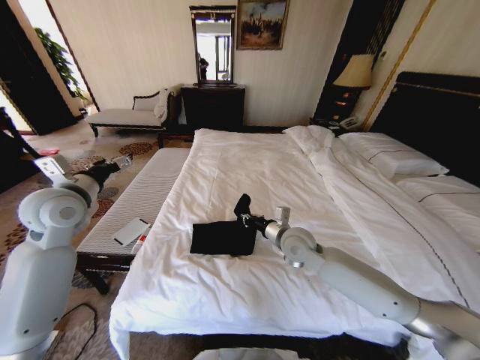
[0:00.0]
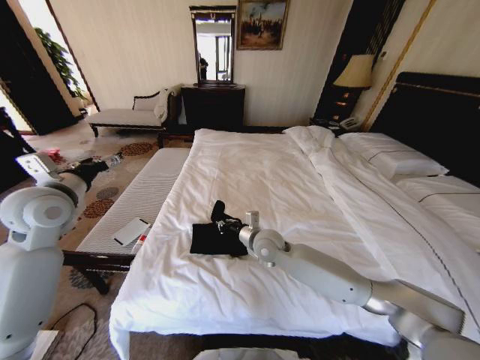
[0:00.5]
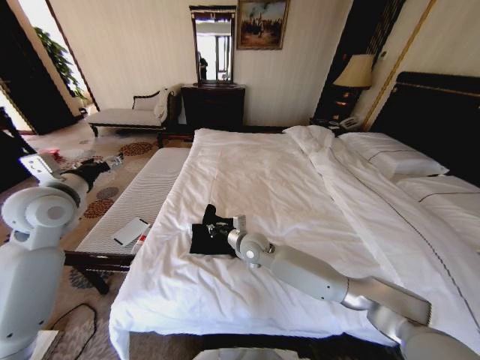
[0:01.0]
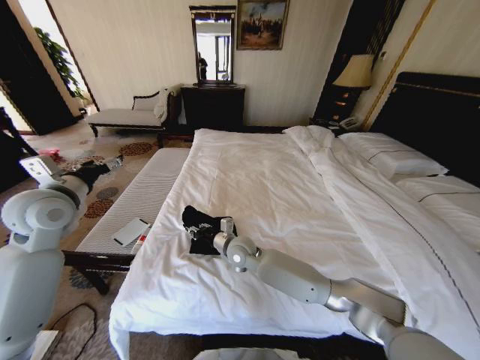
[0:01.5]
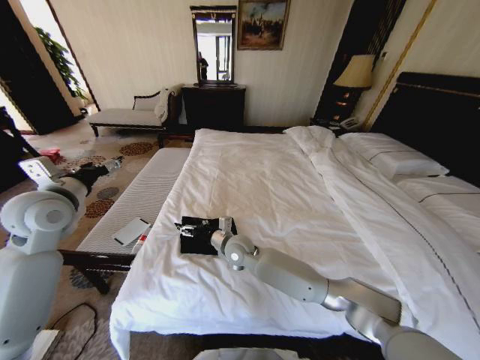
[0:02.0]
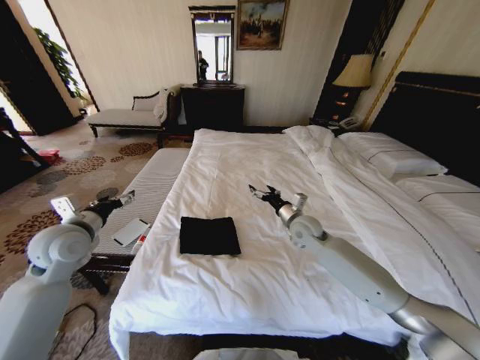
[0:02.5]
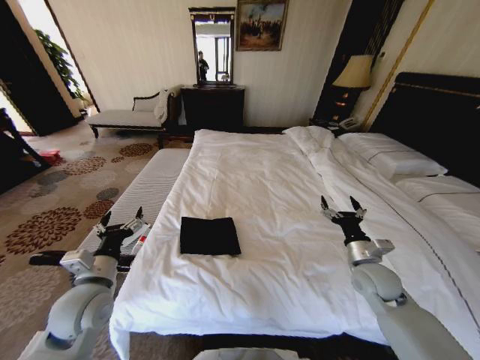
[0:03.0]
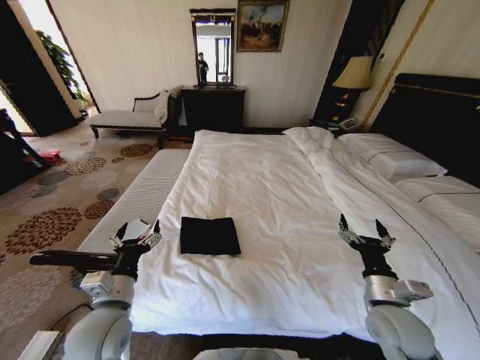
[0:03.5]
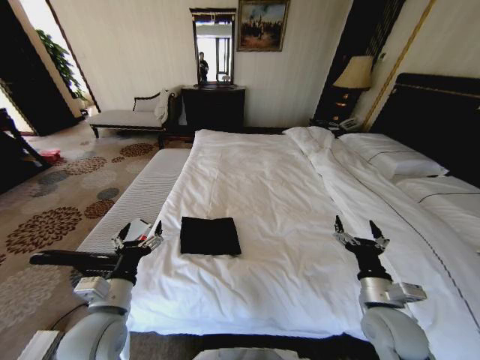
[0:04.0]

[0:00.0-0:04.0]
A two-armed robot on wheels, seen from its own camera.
Task of the whole recording: Fold the clothes on the bed.
0:00.0 to 0:02.0: The right gripper is displaced to the left and downward by about 15 cm, and opens.
0:02.0 to 0:04.0: The right gripper heads to the right and backward, covering approximately 40 cm. Meanwhile the left gripper moves backward, downward and to the right, approximately 25 cm.

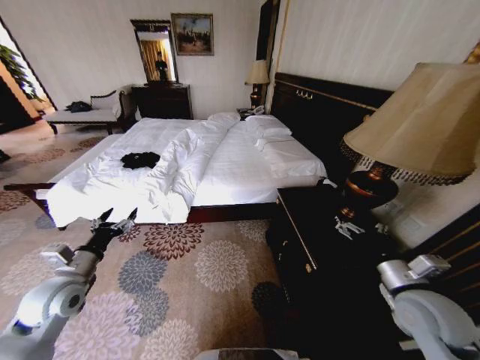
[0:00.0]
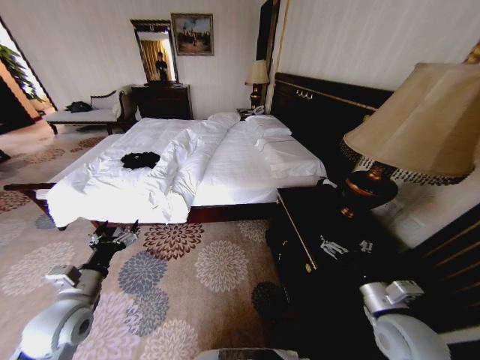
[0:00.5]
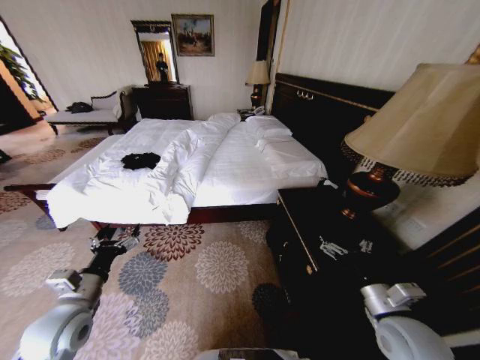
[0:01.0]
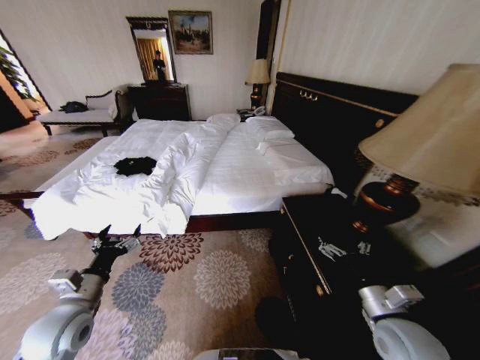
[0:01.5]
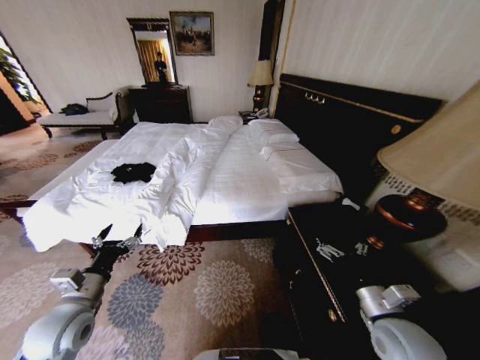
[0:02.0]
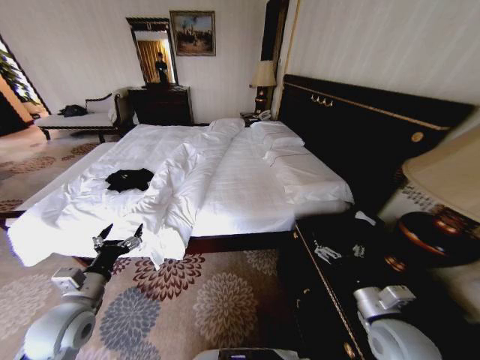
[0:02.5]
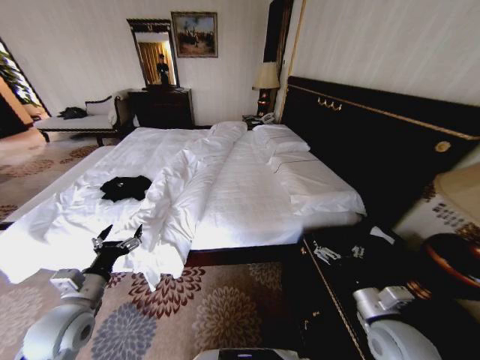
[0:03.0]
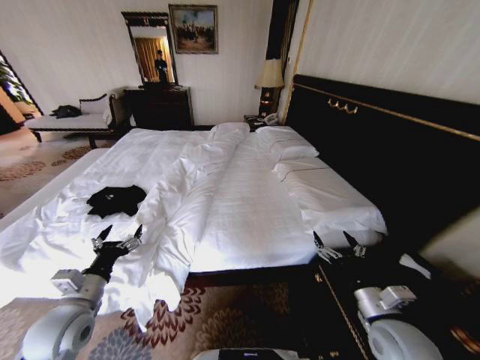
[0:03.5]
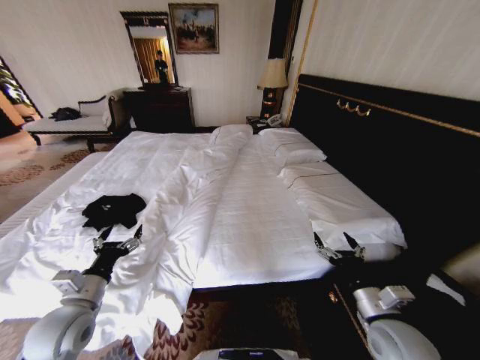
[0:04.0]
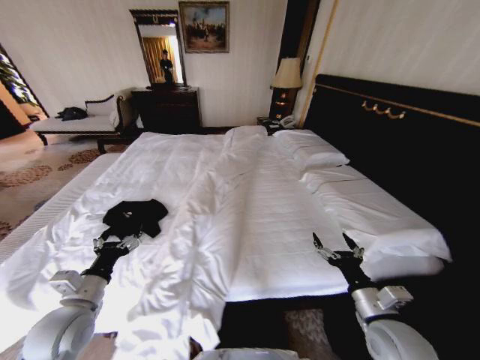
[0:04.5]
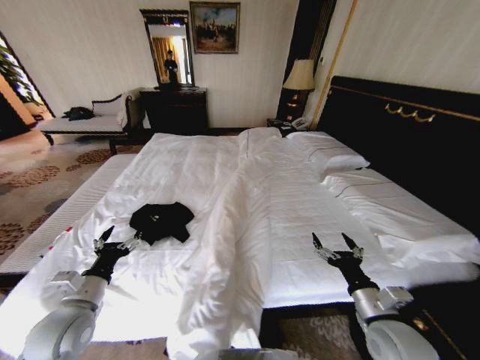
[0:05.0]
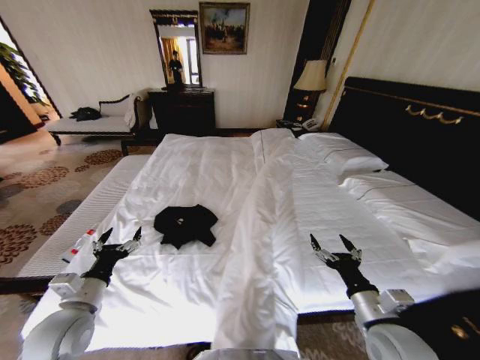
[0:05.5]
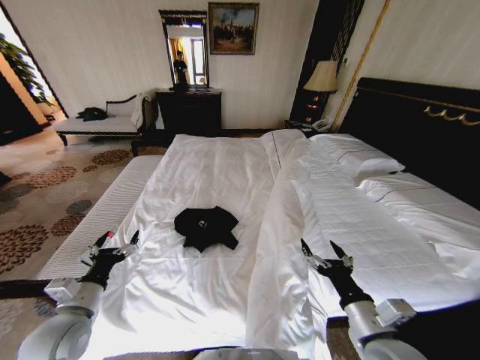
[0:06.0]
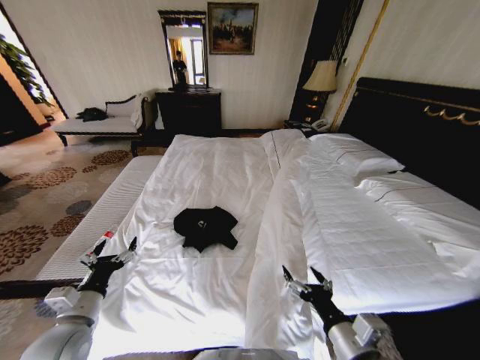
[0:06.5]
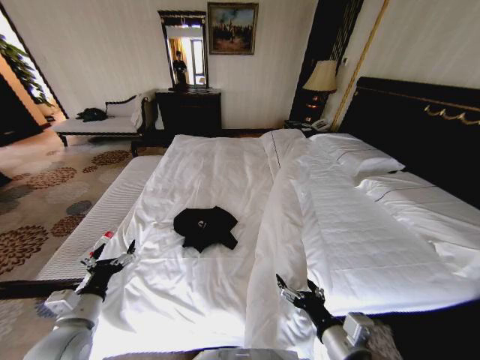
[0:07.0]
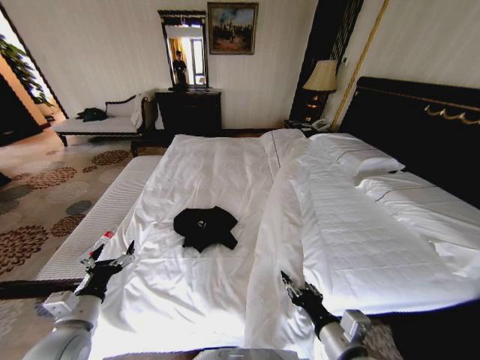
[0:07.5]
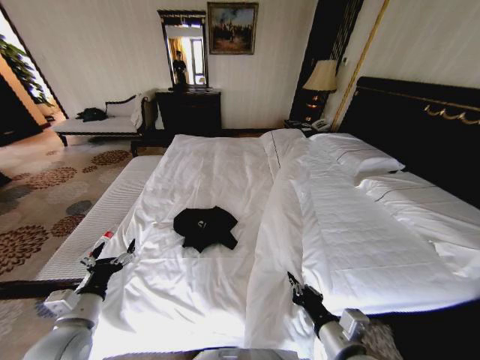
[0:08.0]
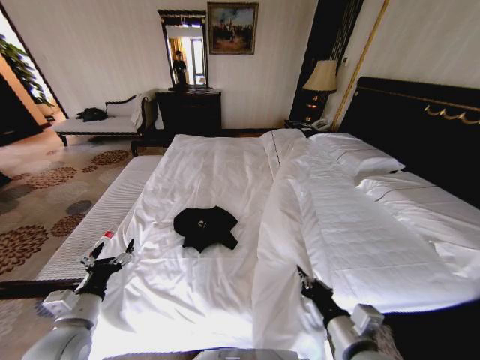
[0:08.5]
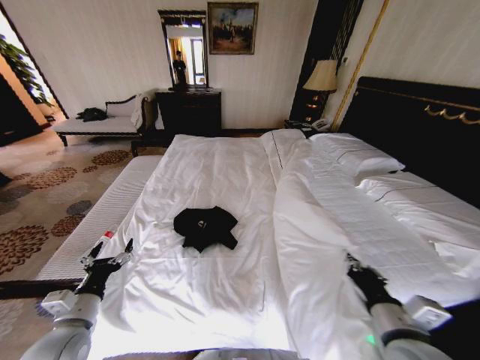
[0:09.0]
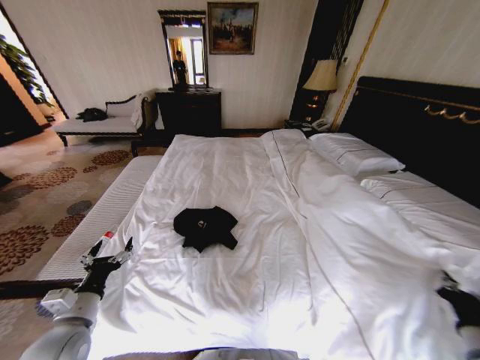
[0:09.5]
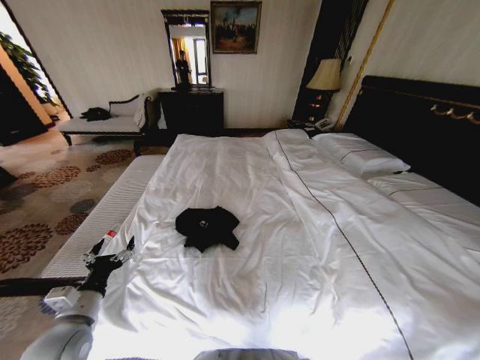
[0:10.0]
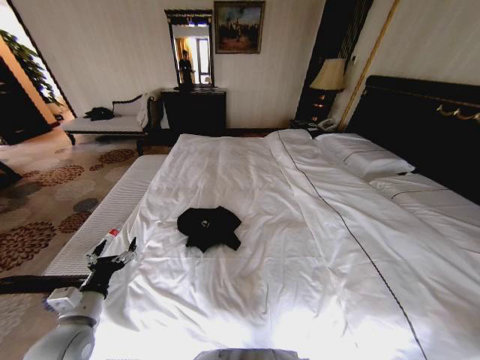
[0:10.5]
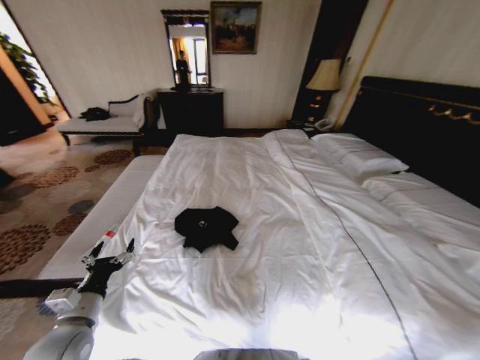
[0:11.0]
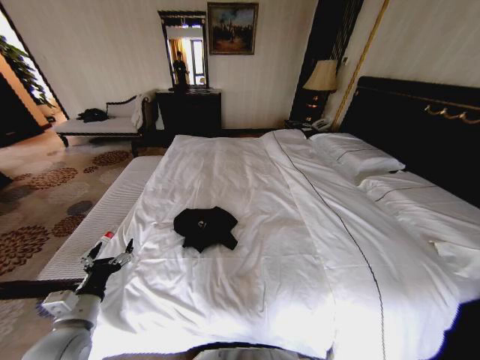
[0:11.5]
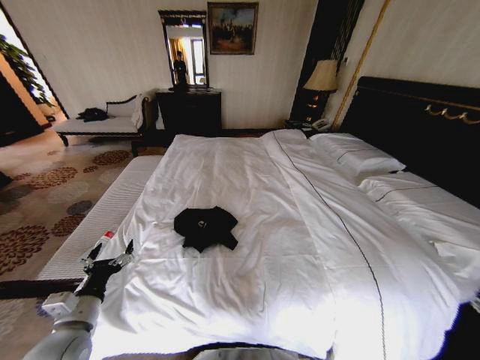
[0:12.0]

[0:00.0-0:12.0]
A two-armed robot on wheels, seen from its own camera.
Task of the whole recording: Fold the clothes on the bed.
0:04.0 to 0:06.0: The right gripper moves some 5 cm.
0:06.0 to 0:08.0: The right gripper moves approximately 5 cm, and closes its fingers.
0:08.0 to 0:10.0: The right gripper shifts approximately 30 cm to the right.
0:10.0 to 0:12.0: The right gripper goes to the right and returns, roughly 5 cm each way, and opens its fingers.

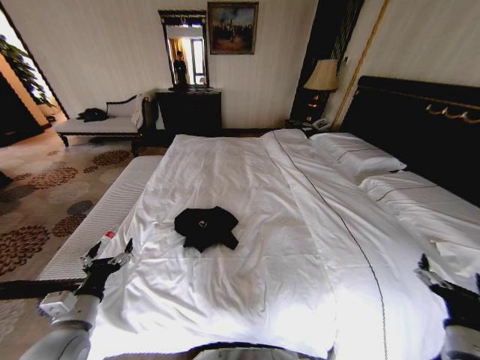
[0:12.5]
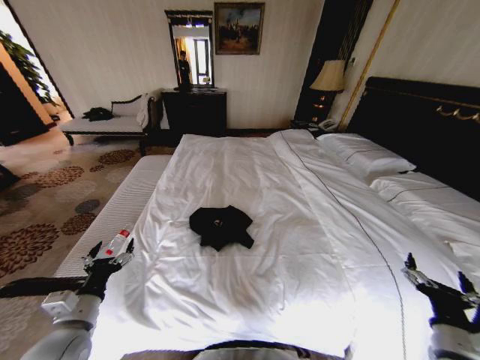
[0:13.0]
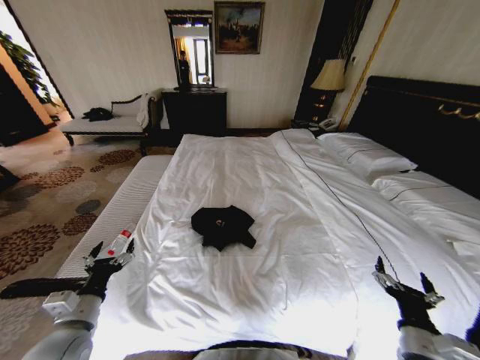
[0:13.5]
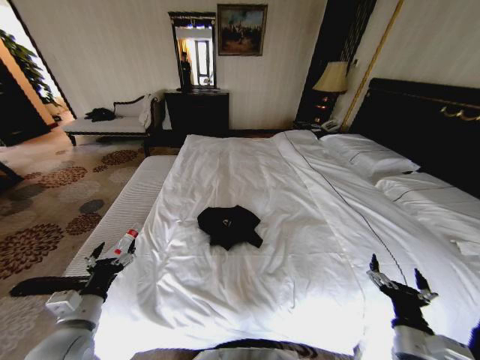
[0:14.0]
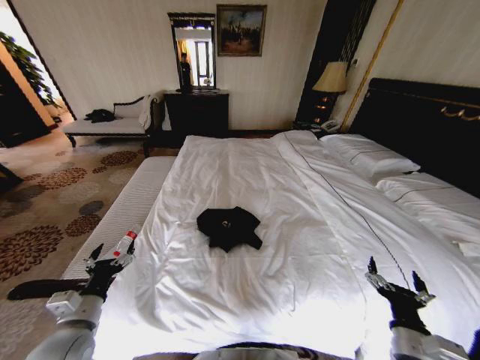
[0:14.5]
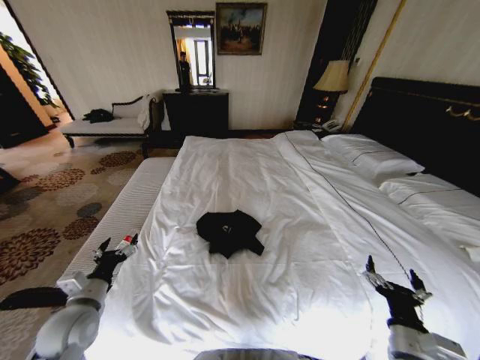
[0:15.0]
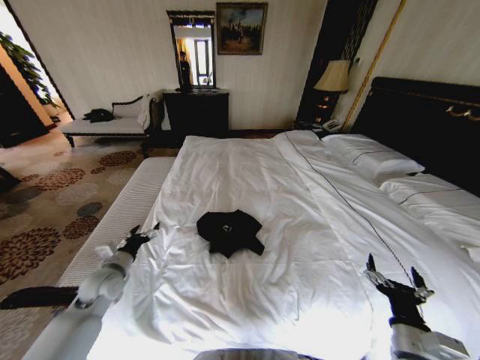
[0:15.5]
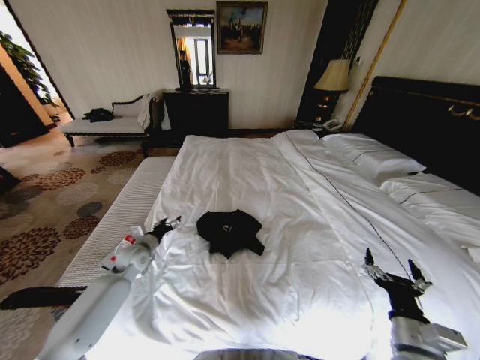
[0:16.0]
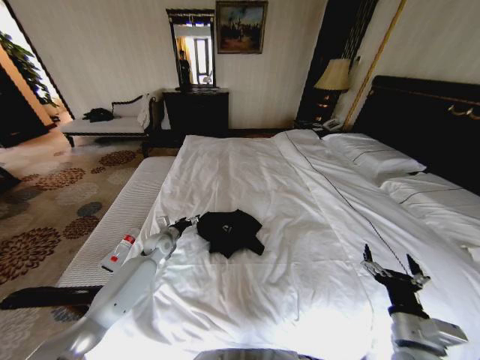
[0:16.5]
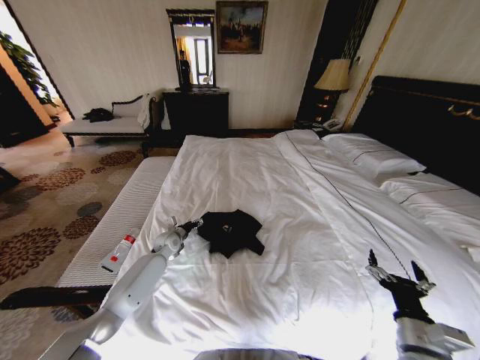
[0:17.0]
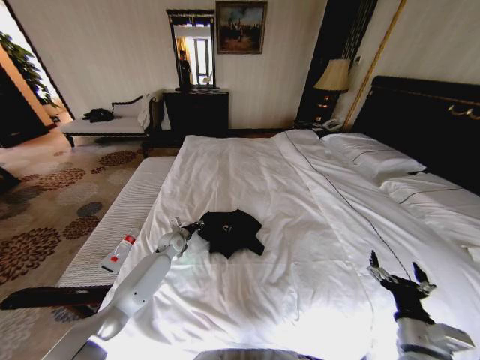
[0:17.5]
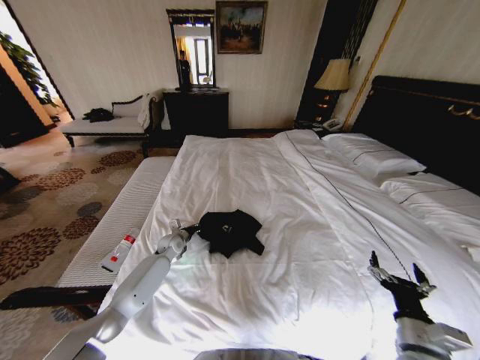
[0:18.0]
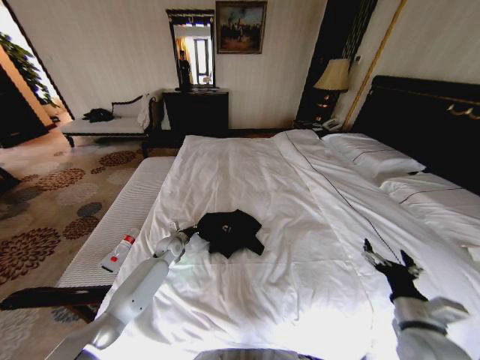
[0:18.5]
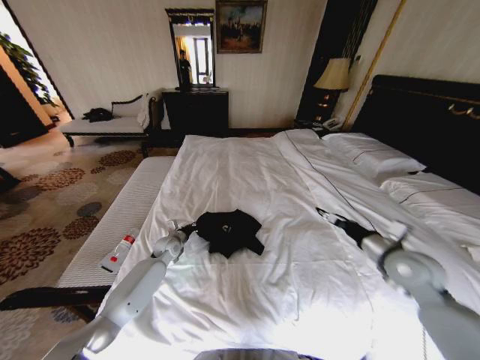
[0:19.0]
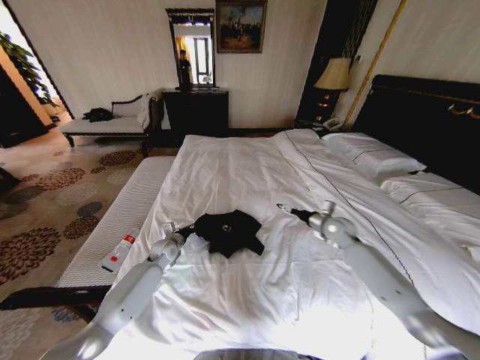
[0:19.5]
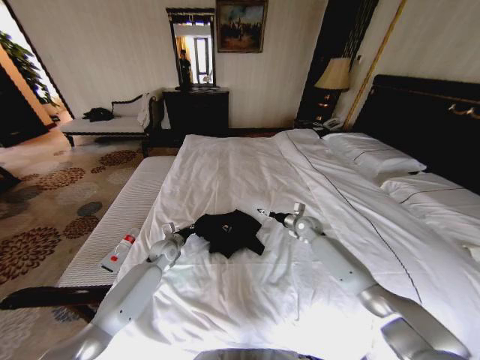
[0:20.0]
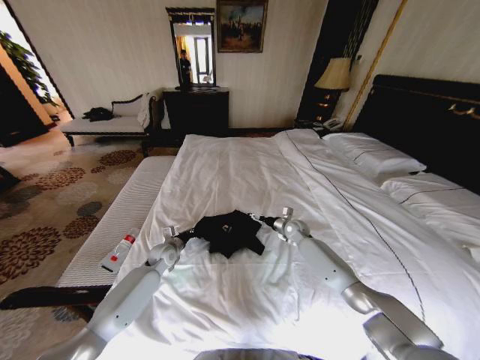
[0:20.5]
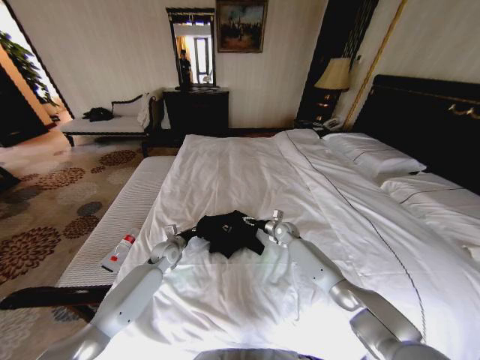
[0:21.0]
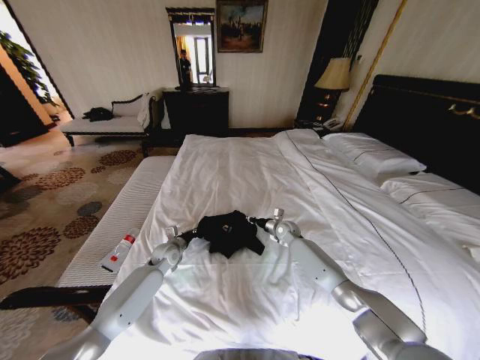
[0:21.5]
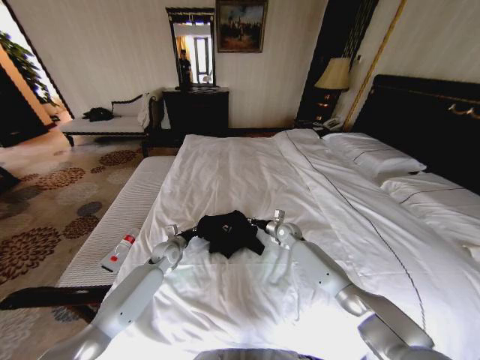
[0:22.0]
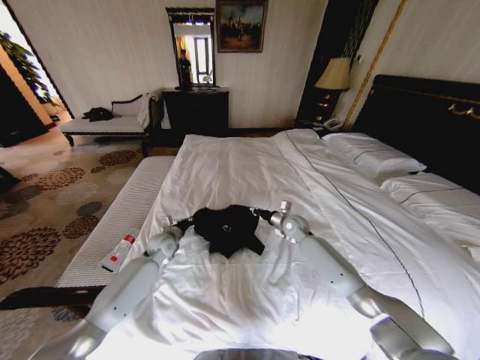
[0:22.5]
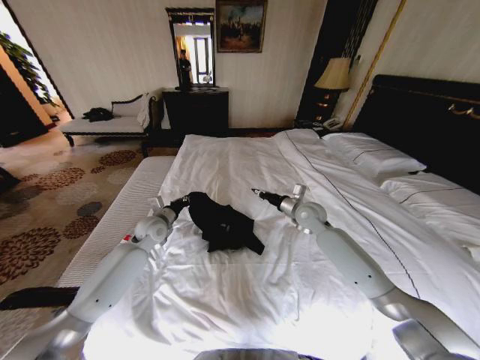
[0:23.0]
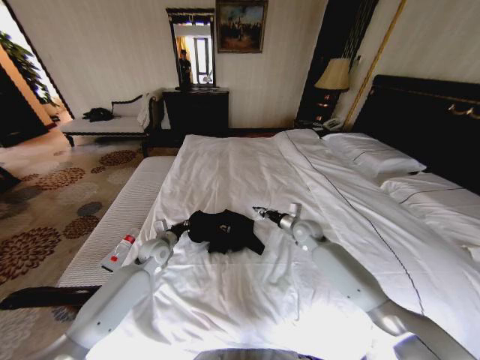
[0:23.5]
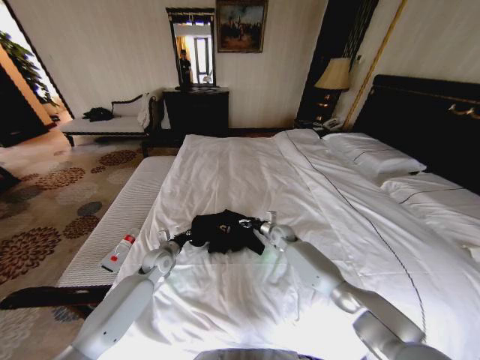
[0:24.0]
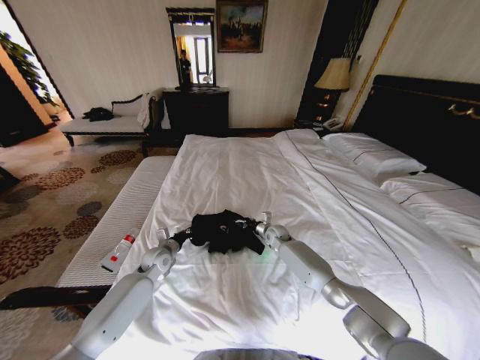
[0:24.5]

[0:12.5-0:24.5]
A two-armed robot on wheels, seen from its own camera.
Task of the whole recording: Fold the clothes on the bed.
0:12.5 to 0:14.5: The right gripper is displaced to the left by some 10 cm.
0:14.5 to 0:16.5: The left gripper shifts roughly 30 cm forward.
0:16.5 to 0:18.5: The left gripper closes its fingers.
0:18.5 to 0:20.5: The right gripper is displaced forward by approximately 40 cm.
0:20.5 to 0:22.5: The right gripper moves some 5 cm, and closes.
0:22.5 to 0:24.5: The right gripper is displaced downward and to the left by about 10 cm, and opens up. The left gripper travels upward and back again, roughly 10 cm each way.
